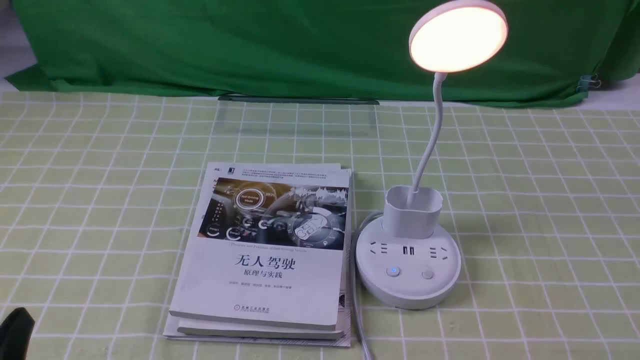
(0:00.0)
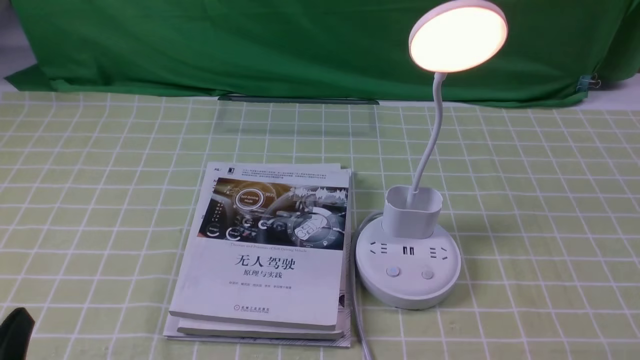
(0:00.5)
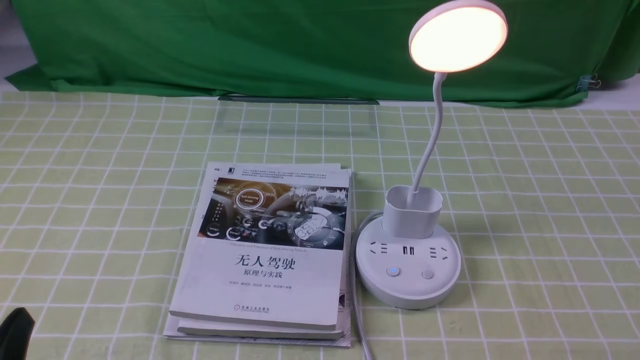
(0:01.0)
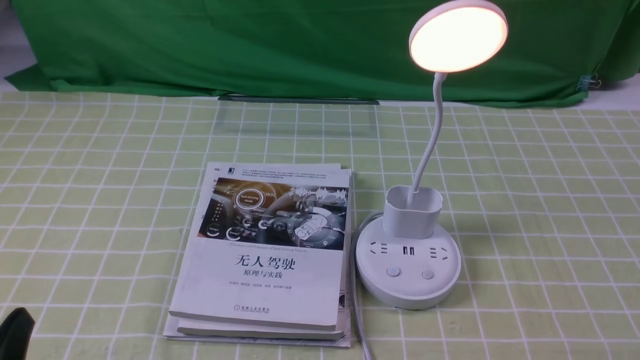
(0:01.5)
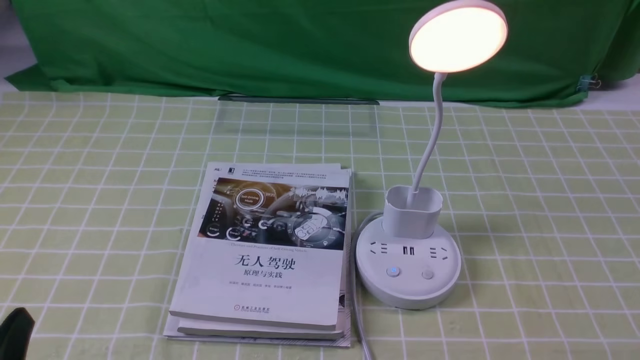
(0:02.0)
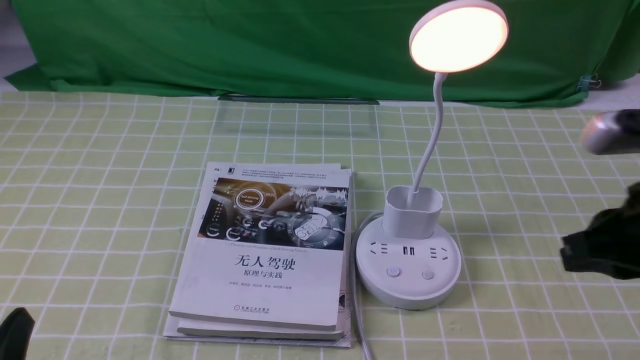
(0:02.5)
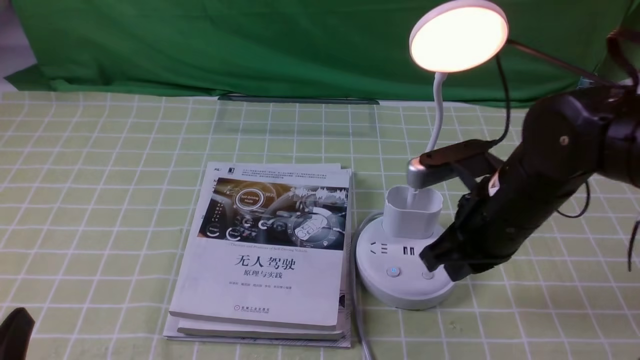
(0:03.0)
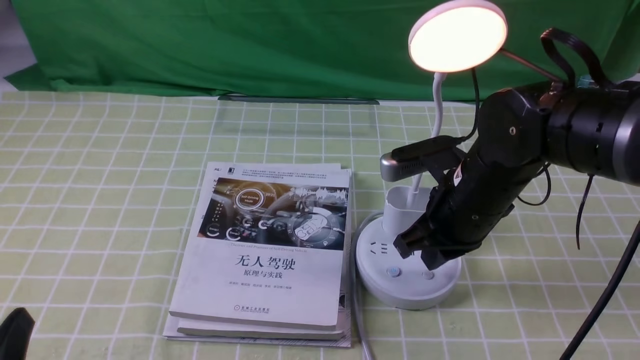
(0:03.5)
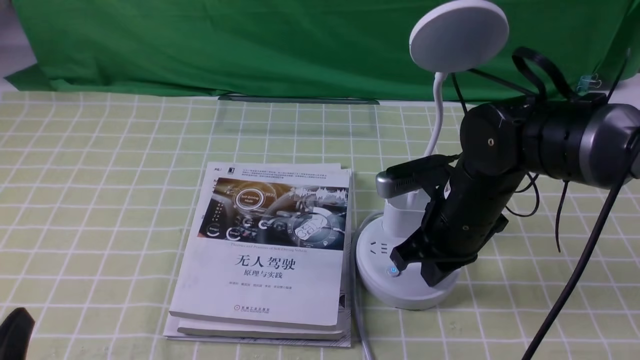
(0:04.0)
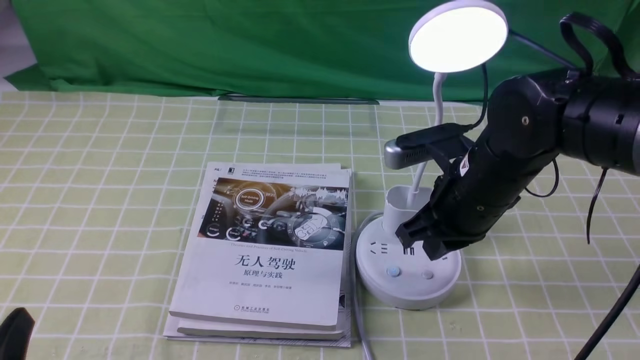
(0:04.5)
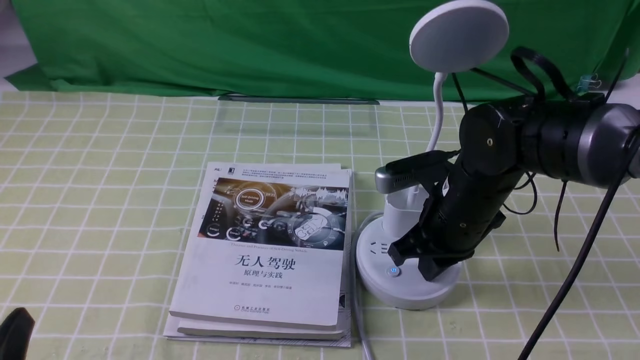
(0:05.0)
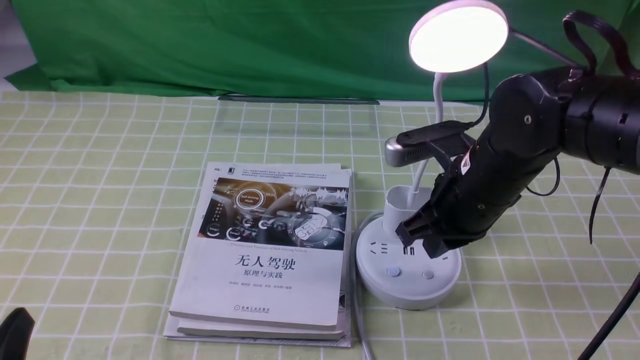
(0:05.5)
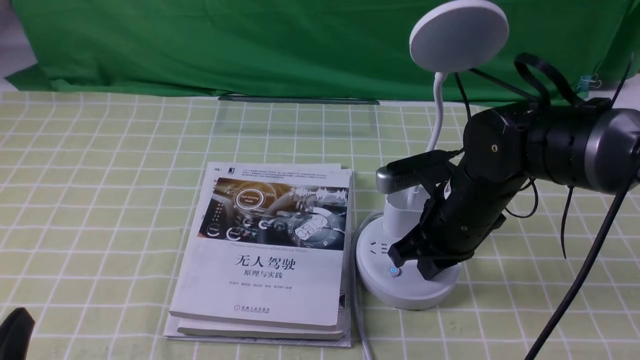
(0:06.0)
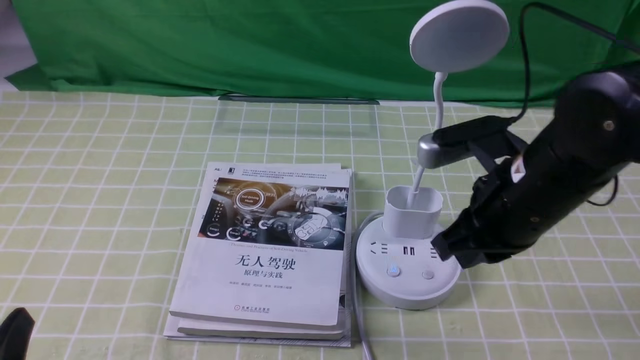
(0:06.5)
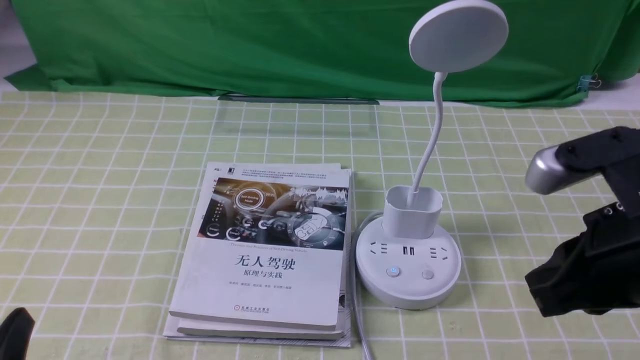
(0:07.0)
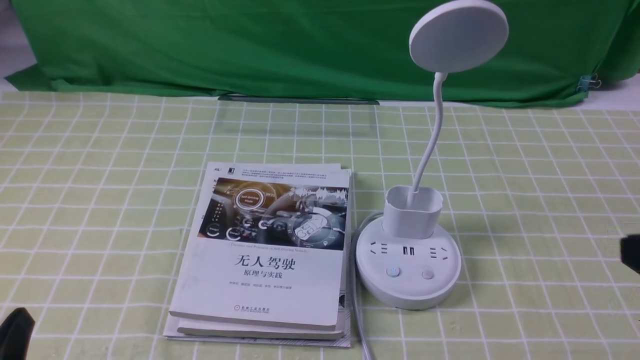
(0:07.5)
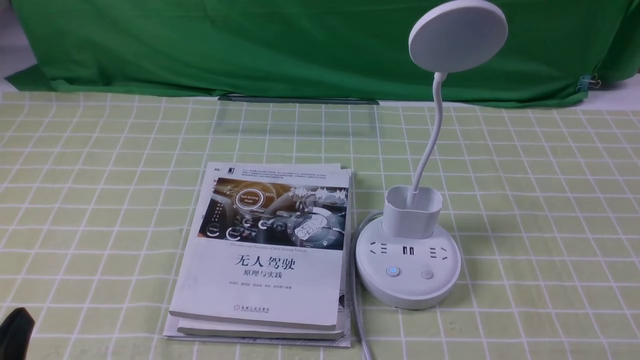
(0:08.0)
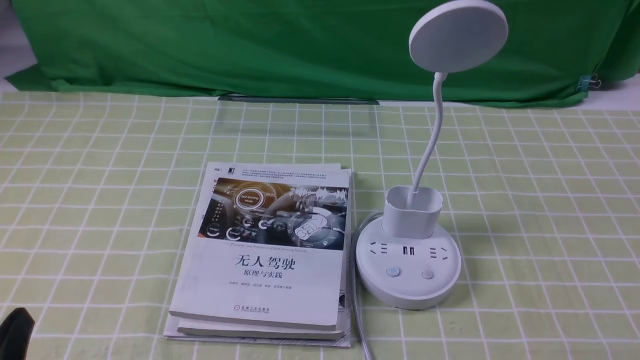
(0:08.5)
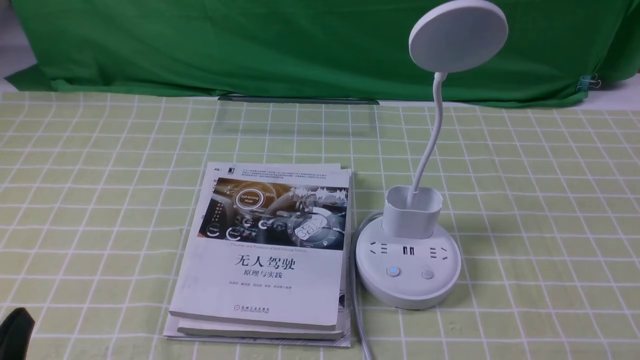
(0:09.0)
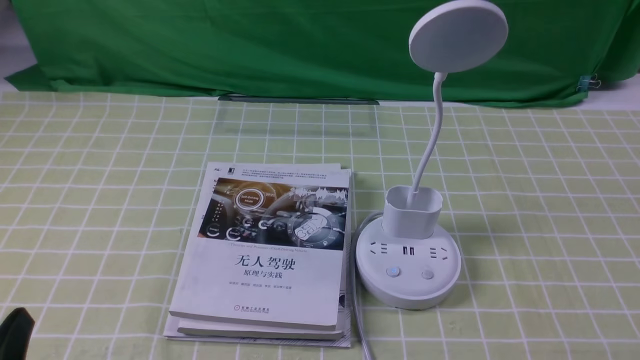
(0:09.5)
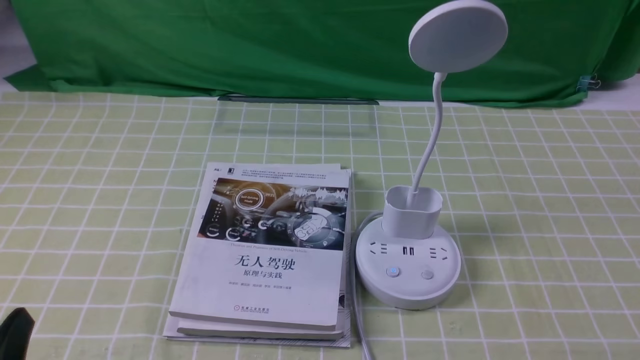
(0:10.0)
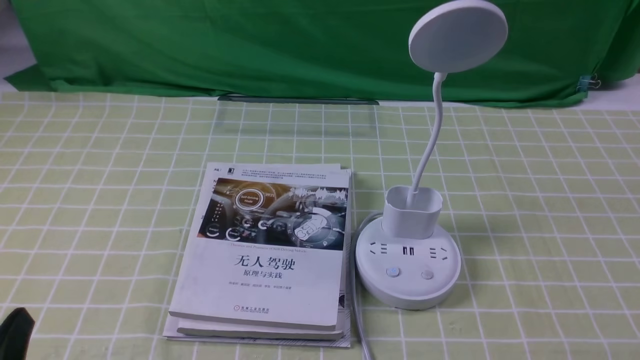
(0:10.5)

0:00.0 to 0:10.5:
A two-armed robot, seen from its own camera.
Task of the whole recording: turn off the desk lamp on the green coffee tablecloth by hand.
Step, 0:00.0 to 0:06.0: use the right arm to press the button switch on the lamp holder.
0:02.0 to 0:04.0: The right gripper shifts roughly 30 cm forward, to the left and downward.
0:04.0 to 0:06.5: The right gripper shifts roughly 10 cm upward and backward.
0:06.5 to 0:08.5: The right gripper shifts about 25 cm backward and to the right.

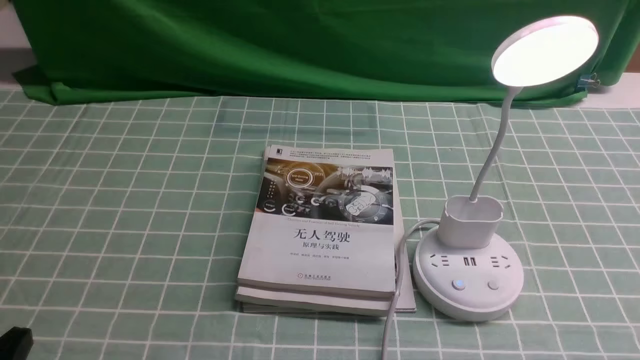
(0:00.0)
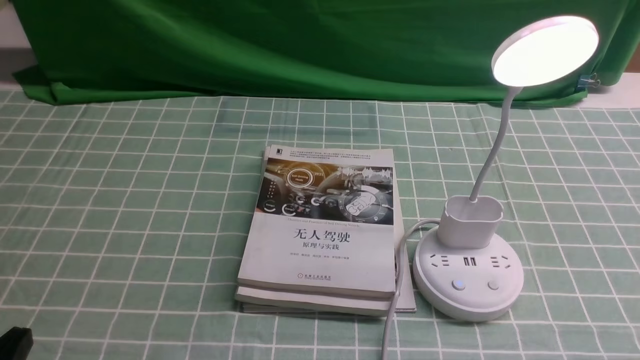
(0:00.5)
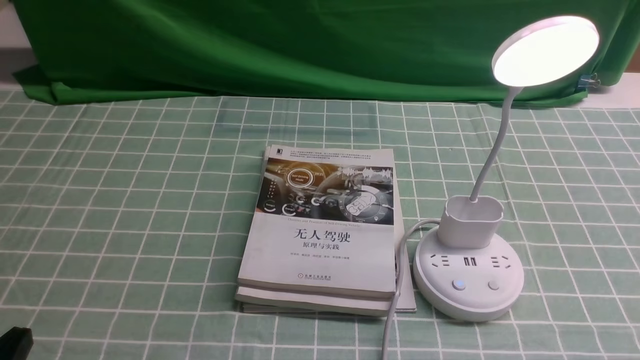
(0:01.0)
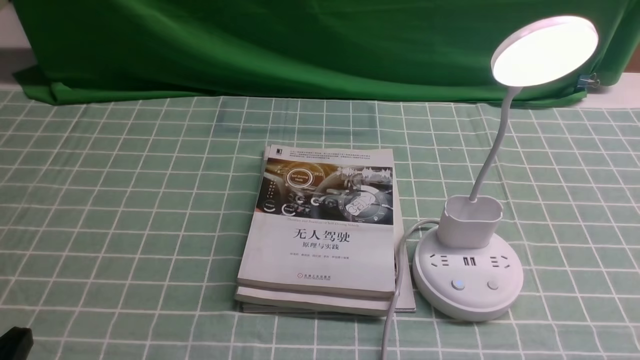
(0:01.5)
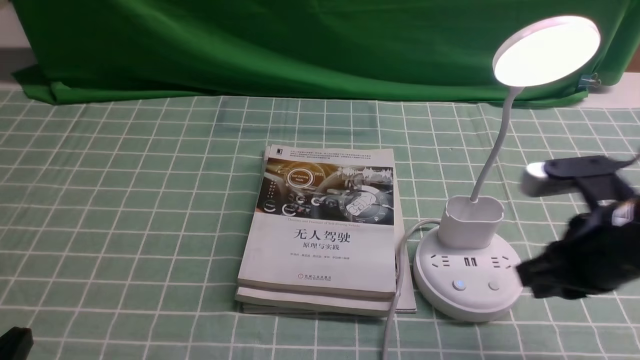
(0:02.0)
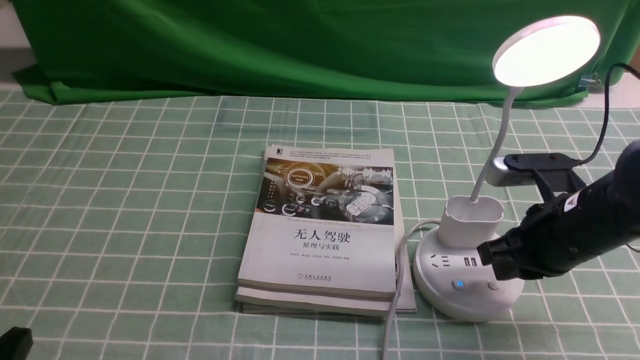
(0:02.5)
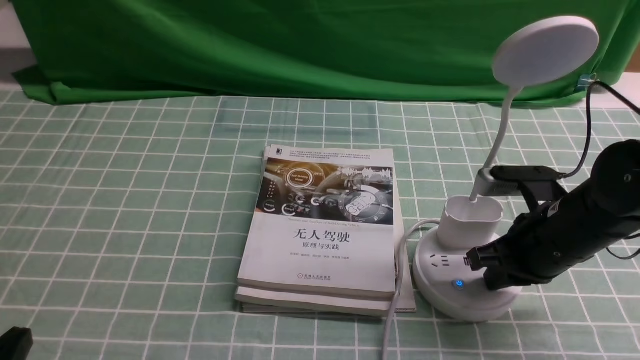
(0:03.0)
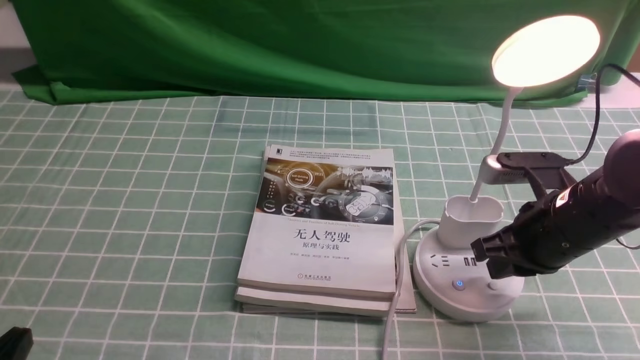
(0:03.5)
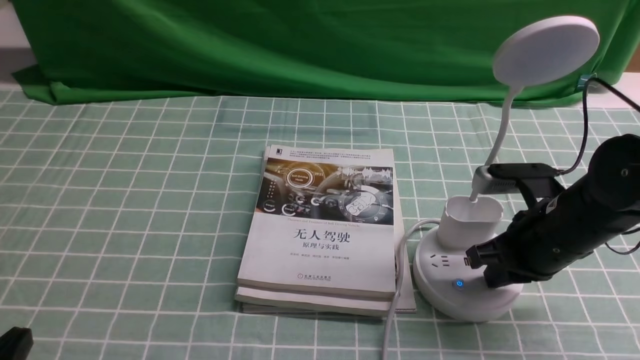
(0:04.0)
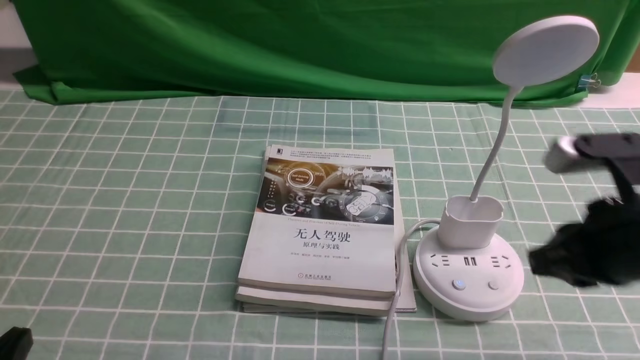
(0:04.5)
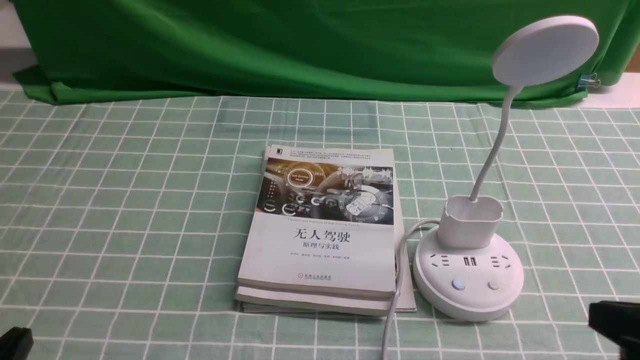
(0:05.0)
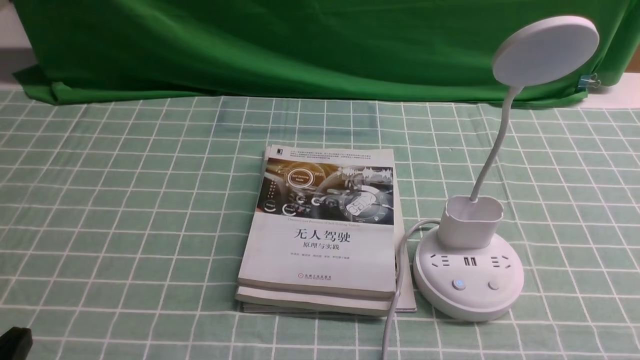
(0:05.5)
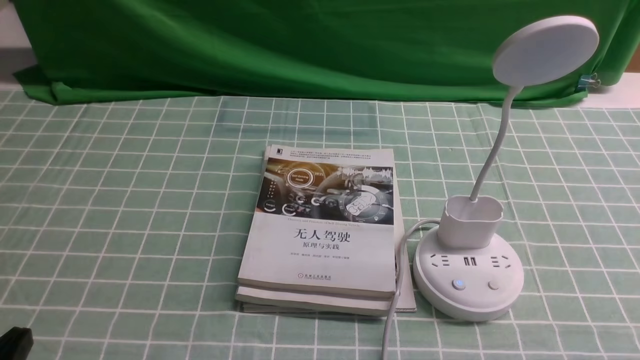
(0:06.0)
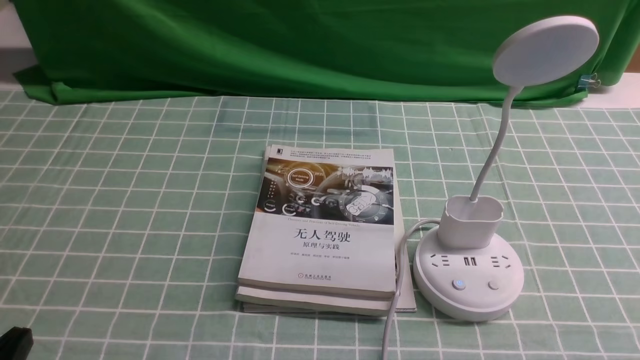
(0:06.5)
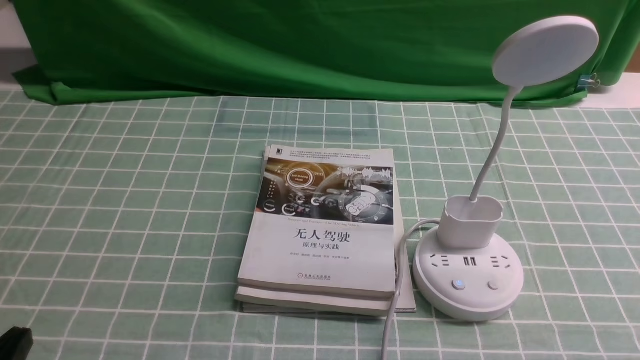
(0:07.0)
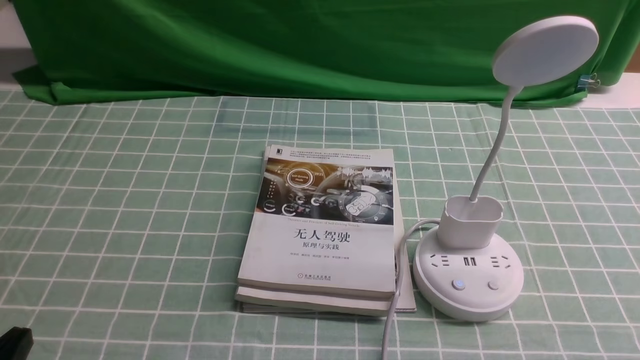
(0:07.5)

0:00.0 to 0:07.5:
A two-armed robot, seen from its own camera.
Task of the whole recording: turn off the desk lamp on the blue coffee tablecloth by hand.
Step, 0:00.0 to 0:04.0: use the right arm to press the button switch on the lamp holder.
0:00.0 to 0:02.0: The right gripper shifts roughly 20 cm forward, and closes its fingers.
0:02.0 to 0:04.0: The right gripper changes place by approximately 5 cm.
0:04.0 to 0:05.5: The right gripper heads backward, covering roughly 20 cm.
